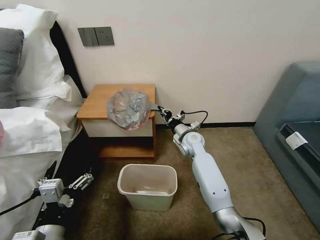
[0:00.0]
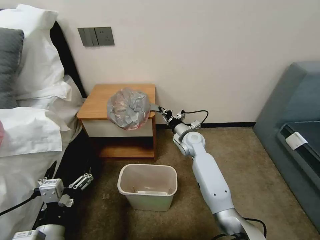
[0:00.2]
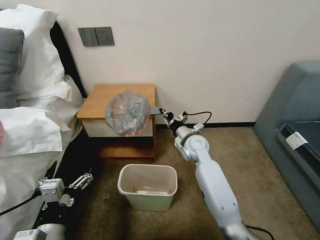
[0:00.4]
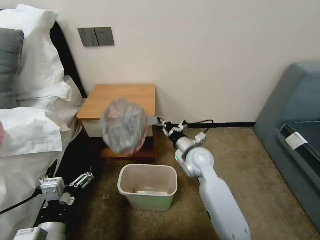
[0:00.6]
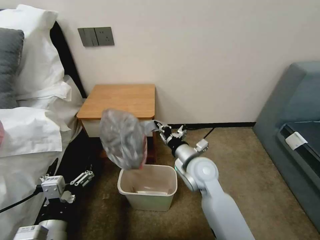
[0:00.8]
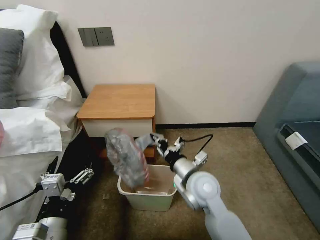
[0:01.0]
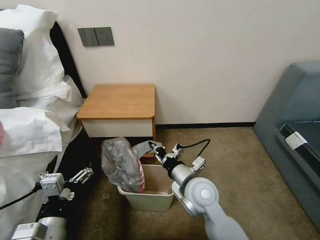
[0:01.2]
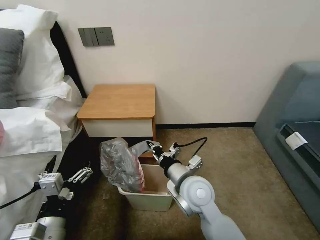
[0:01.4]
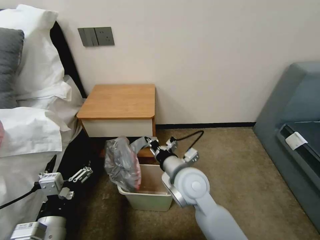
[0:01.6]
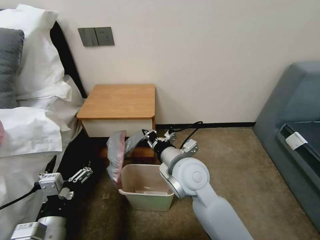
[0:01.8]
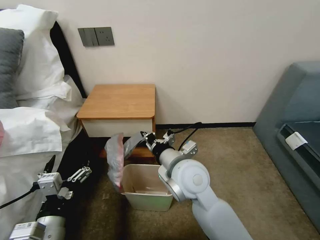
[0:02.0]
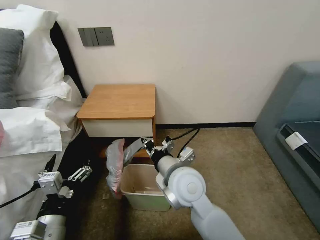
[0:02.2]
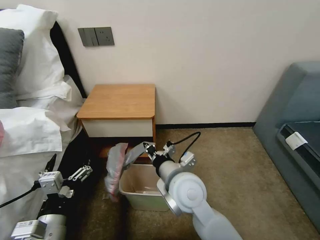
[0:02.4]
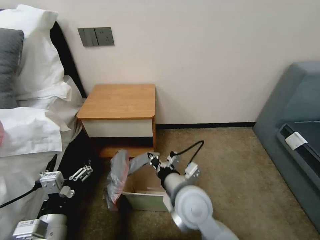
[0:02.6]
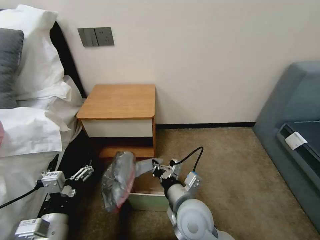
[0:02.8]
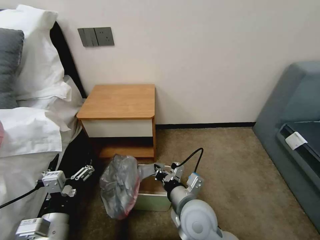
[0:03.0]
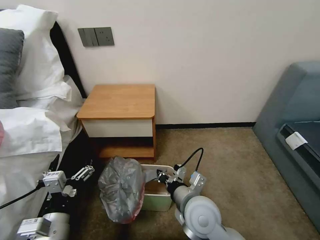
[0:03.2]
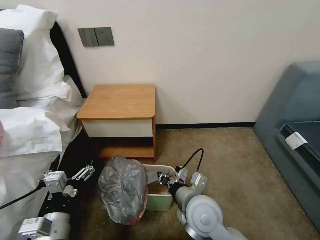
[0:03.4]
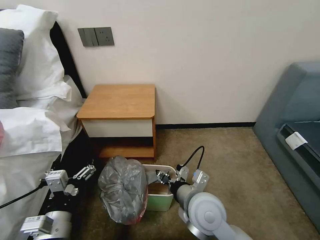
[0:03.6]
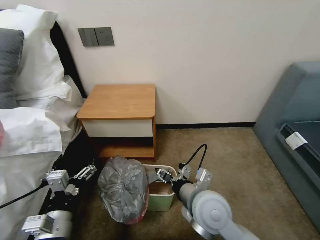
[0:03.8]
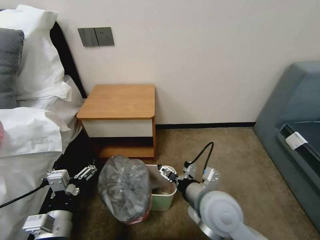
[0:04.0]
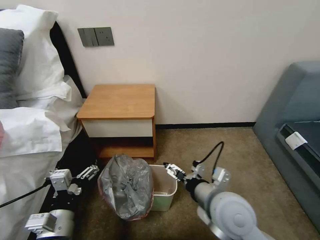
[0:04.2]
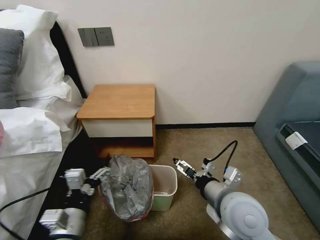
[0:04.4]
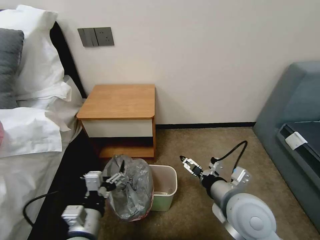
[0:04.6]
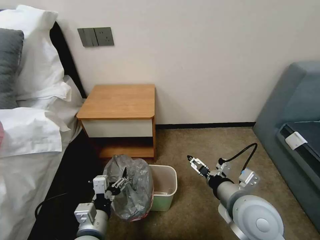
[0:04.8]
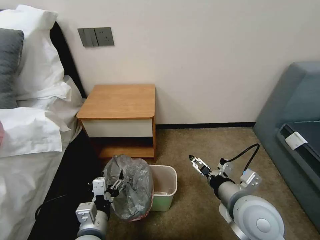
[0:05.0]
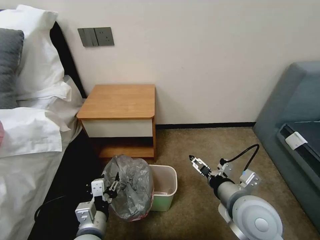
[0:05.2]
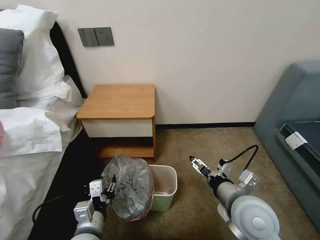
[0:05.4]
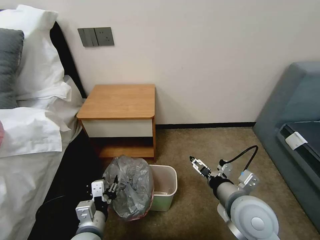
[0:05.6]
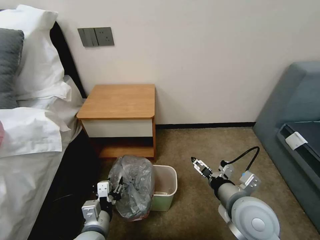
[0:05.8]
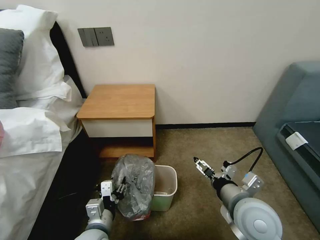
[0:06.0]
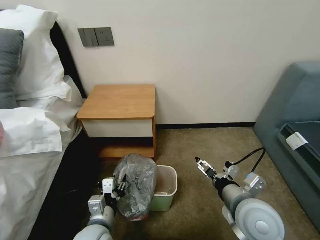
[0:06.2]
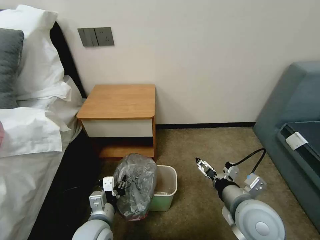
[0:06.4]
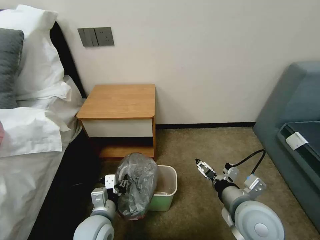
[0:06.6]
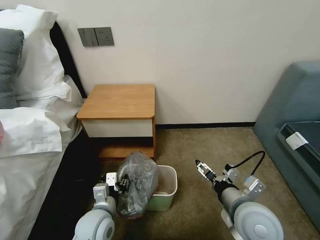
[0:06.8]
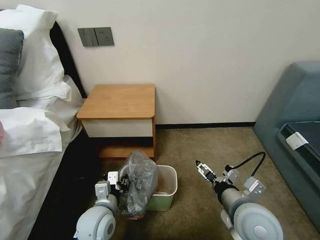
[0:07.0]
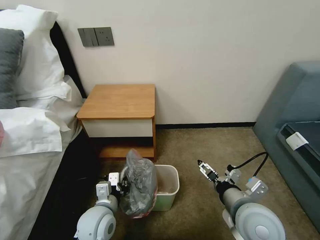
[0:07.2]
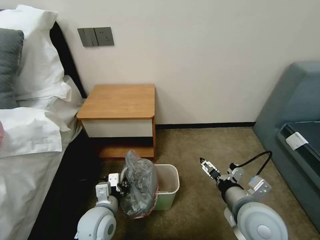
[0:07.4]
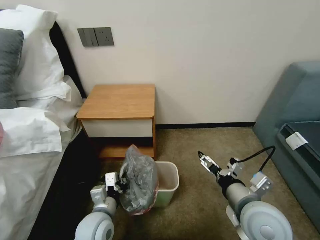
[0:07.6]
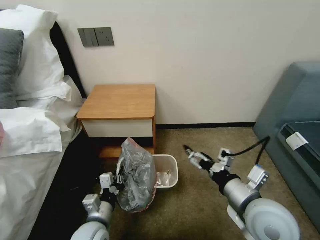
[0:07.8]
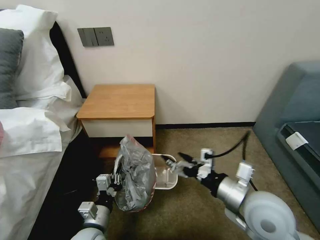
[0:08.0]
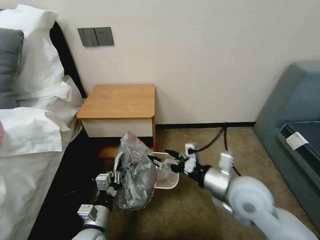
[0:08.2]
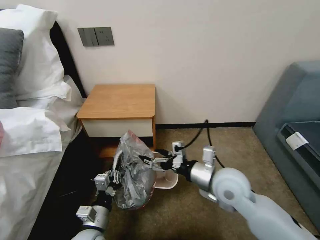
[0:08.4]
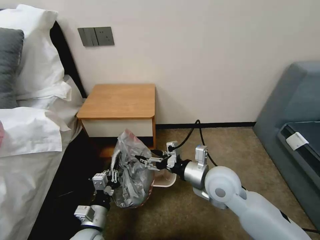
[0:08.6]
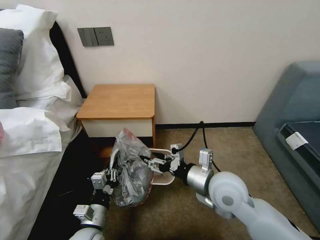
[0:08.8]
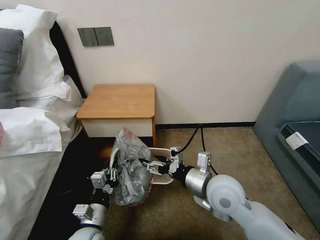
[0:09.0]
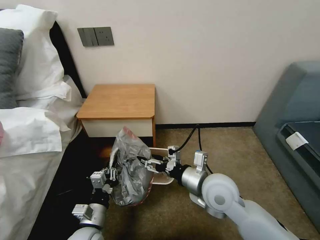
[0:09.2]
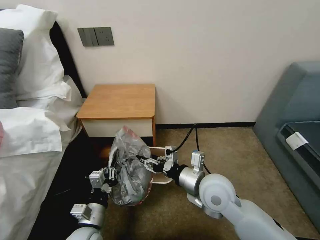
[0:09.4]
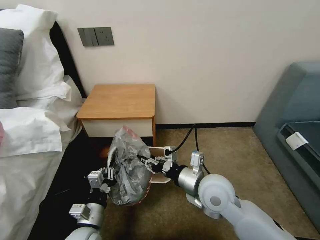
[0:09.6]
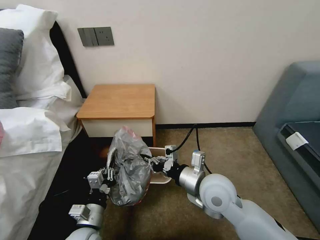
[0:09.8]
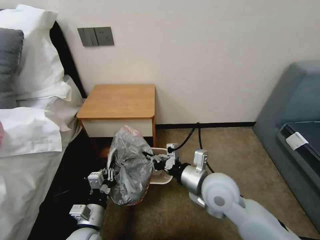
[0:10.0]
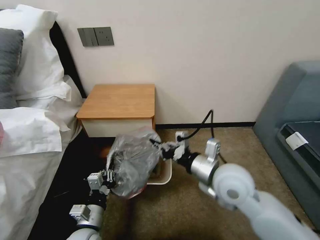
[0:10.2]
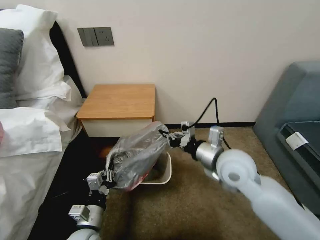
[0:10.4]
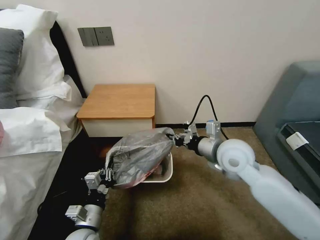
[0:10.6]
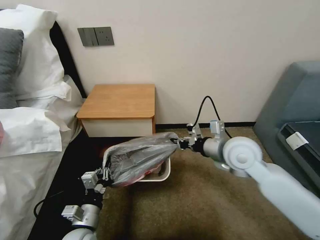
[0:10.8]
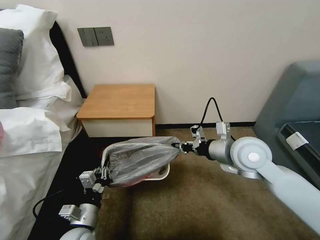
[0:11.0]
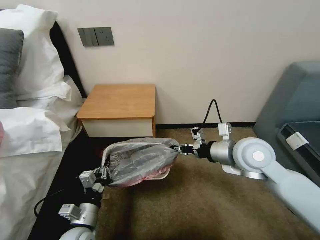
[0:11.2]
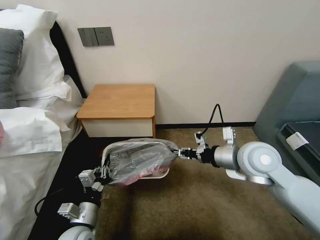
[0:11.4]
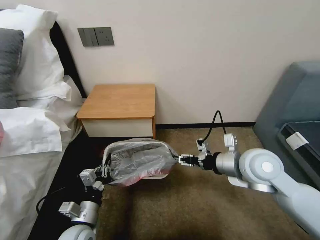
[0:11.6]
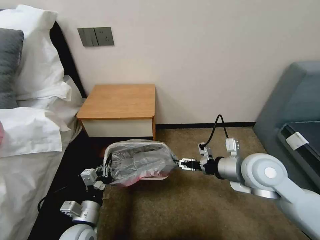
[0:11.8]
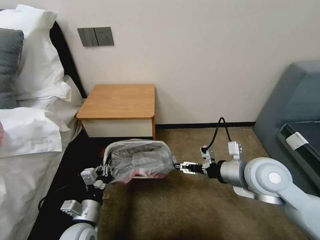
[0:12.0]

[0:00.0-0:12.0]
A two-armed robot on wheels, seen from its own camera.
Task of the whole recording: Pick up the garbage bag from the table and place it over the trash can.
0:00.0 to 0:01.6: The right gripper shifts some 20 cm backward and upward.
0:01.6 to 0:03.0: The right gripper travels backward and downward by some 10 cm.
0:03.0 to 0:04.4: The right gripper is displaced to the right and upward by some 10 cm, and opens up.
0:04.4 to 0:06.0: The left gripper heads downward, covering some 5 cm, and closes its fingers.
0:06.0 to 0:07.6: The left gripper closes.
0:07.6 to 0:09.0: The right gripper shifts roughly 10 cm forward and to the left.
0:09.0 to 0:10.4: The right gripper heads forward, covering roughly 5 cm, and closes up.
0:10.4 to 0:12.0: The right gripper shifts some 5 cm to the right, and opens.

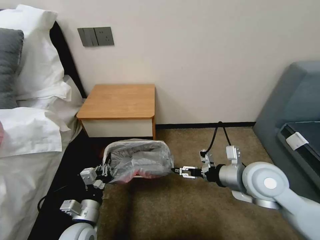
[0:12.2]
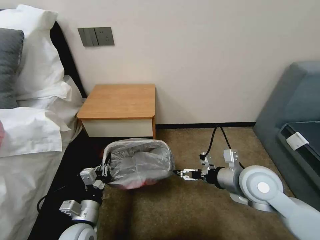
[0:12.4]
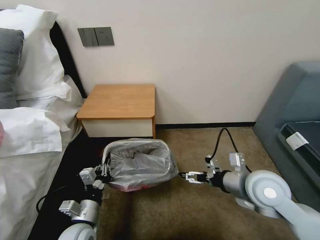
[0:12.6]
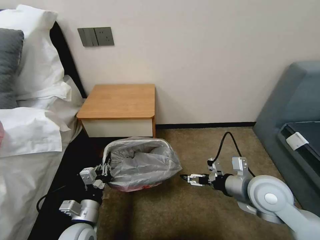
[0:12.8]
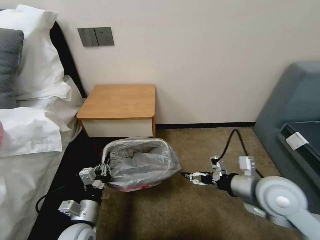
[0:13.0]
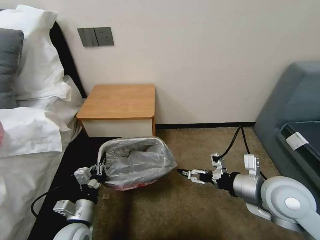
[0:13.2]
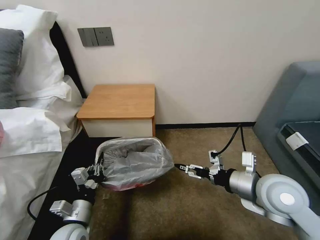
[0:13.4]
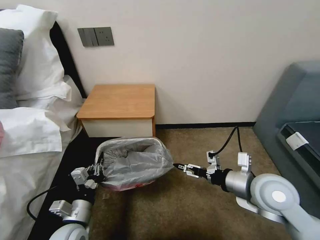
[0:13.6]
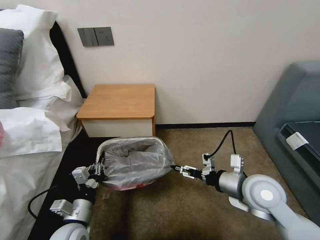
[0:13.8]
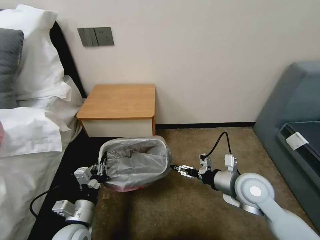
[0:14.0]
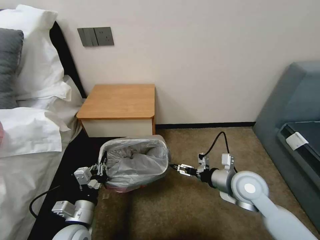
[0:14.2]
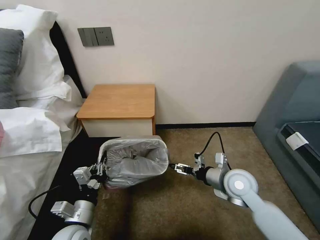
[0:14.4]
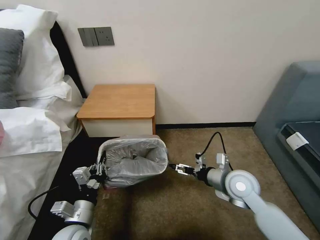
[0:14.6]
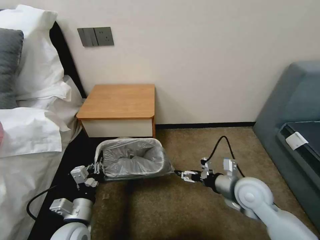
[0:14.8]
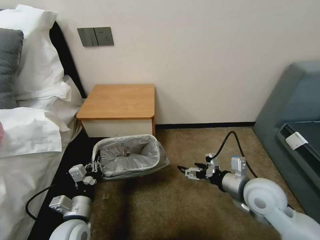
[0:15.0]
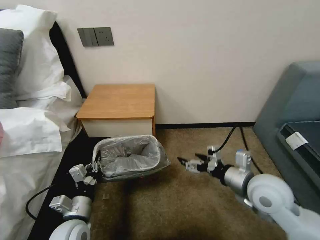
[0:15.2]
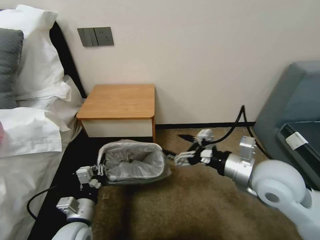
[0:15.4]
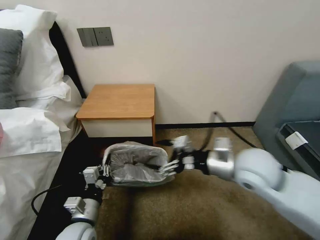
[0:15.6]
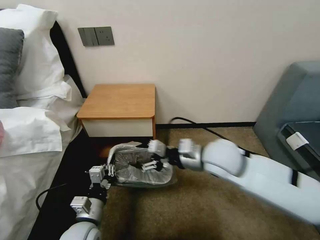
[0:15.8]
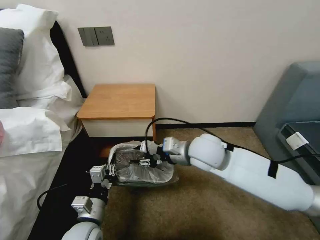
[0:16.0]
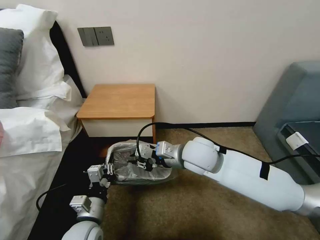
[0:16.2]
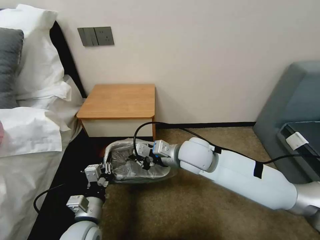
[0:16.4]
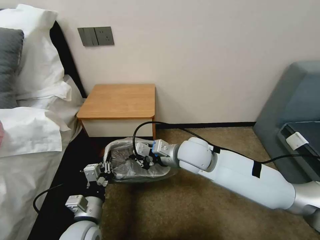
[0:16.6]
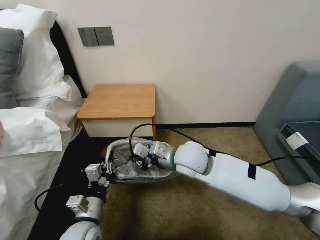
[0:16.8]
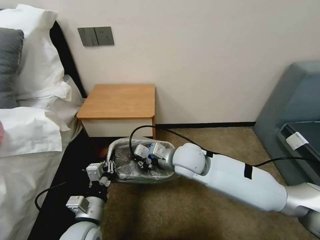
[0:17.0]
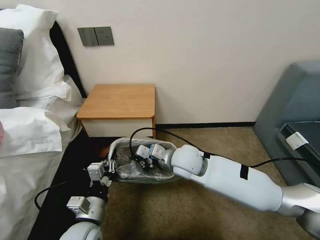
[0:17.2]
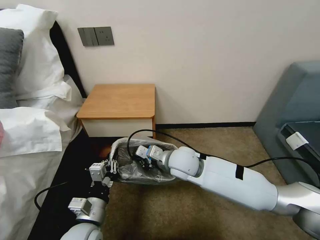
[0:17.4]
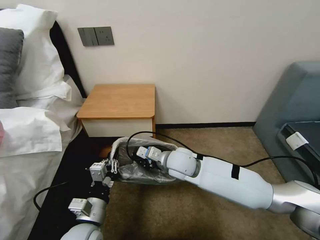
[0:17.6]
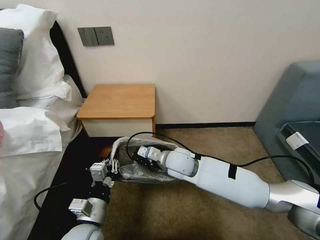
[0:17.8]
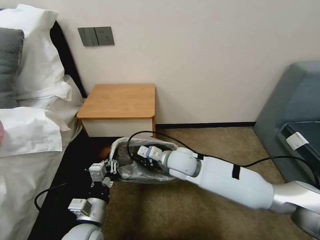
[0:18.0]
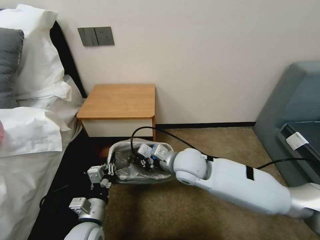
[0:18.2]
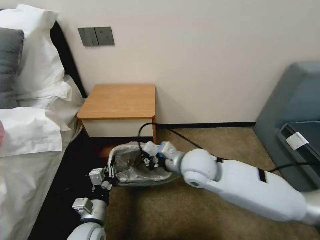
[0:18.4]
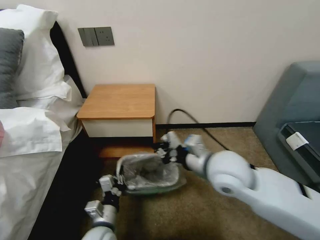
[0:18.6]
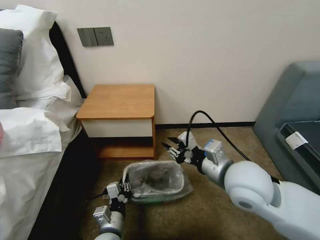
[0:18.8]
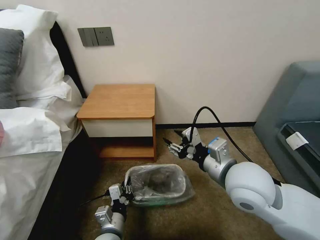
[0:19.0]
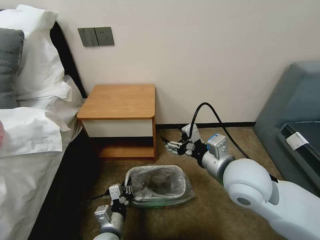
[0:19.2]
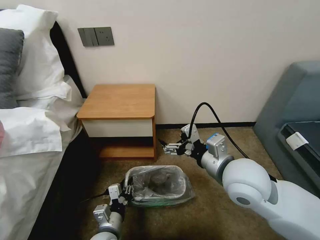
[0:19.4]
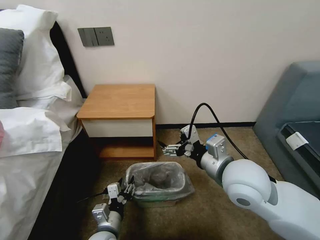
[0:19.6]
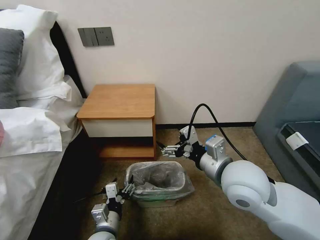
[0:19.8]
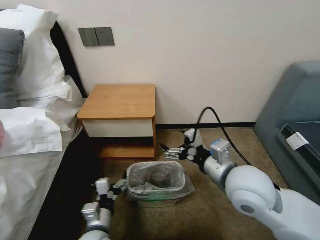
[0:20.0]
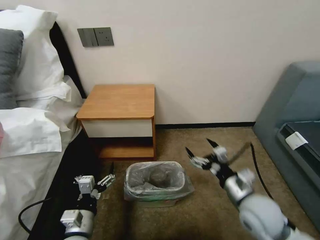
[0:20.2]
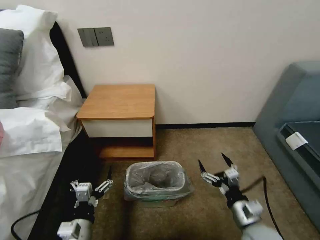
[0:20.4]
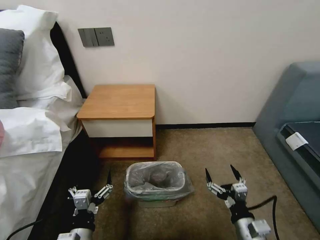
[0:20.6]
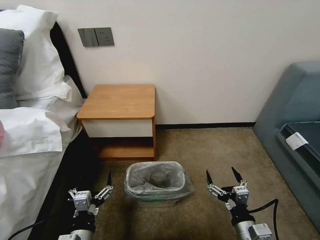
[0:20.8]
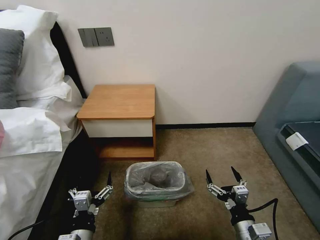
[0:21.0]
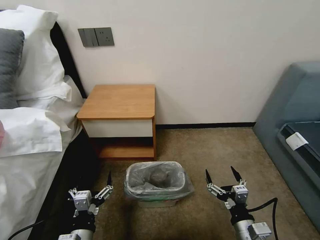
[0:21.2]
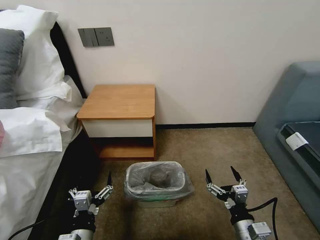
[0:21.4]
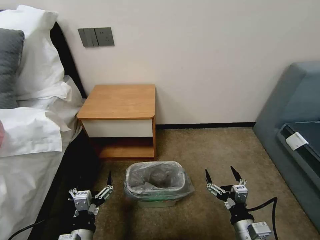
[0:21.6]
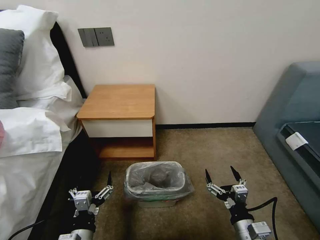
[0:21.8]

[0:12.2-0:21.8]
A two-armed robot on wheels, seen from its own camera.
Task of the whole recording: Pick up the garbage bag from the table and place it over the trash can.
0:12.2 to 0:13.8: The grippers stay close to where they were, moving slightly.
0:13.8 to 0:15.4: The right gripper travels upward by roughly 10 cm.
0:15.4 to 0:17.0: The right gripper heads to the left and forward, covering approximately 20 cm, and closes its fingers.
0:17.0 to 0:18.6: The left gripper moves downward, about 5 cm. Meanwhile the right gripper goes roughly 10 cm to the right, backward and upward.
0:18.6 to 0:20.2: The right gripper is displaced downward, to the right and backward by about 20 cm, and opens; the left gripper heads to the left, covering some 5 cm, and opens.
0:20.2 to 0:21.8: The right gripper heads backward and downward, covering approximately 10 cm; the left gripper changes place by about 5 cm.
